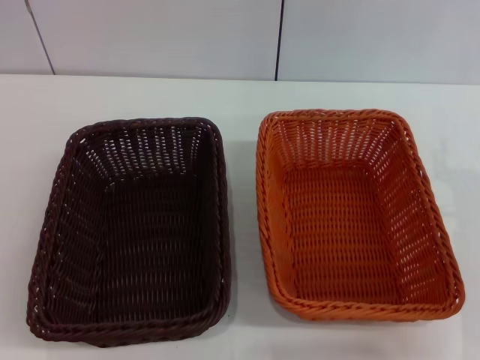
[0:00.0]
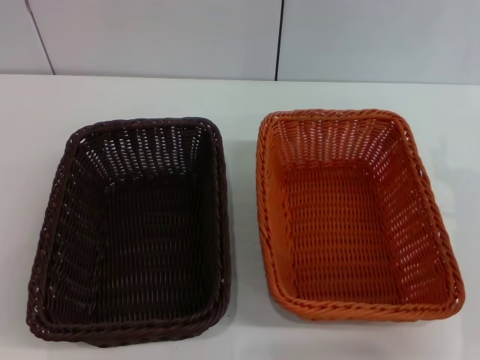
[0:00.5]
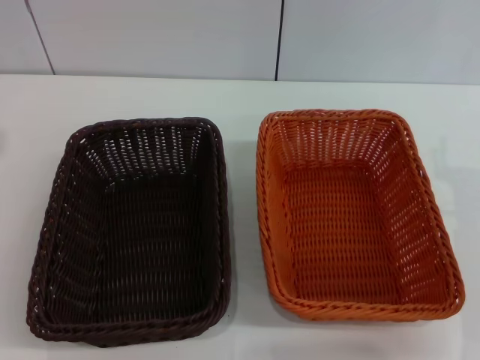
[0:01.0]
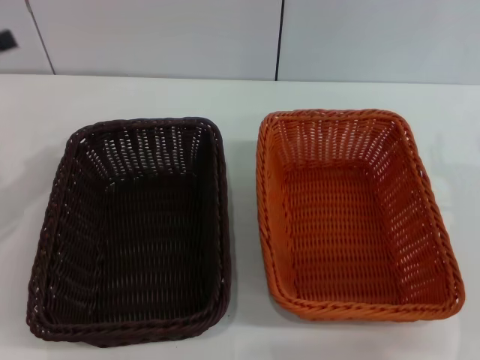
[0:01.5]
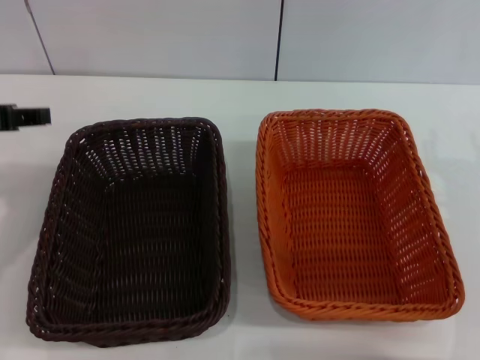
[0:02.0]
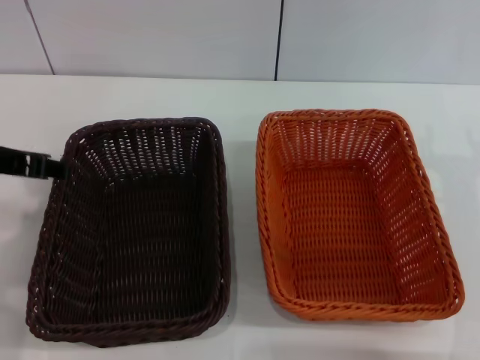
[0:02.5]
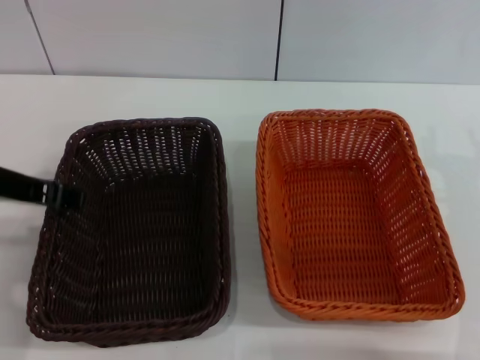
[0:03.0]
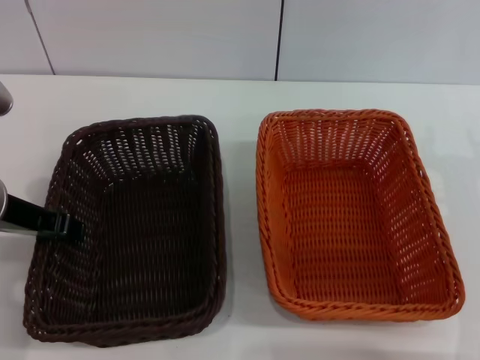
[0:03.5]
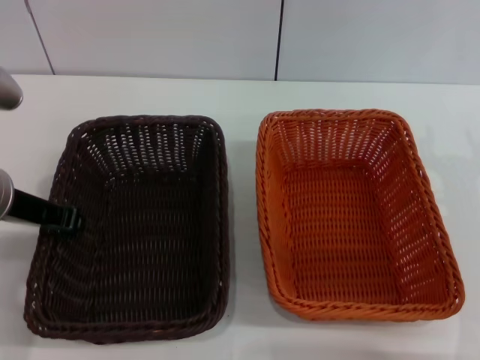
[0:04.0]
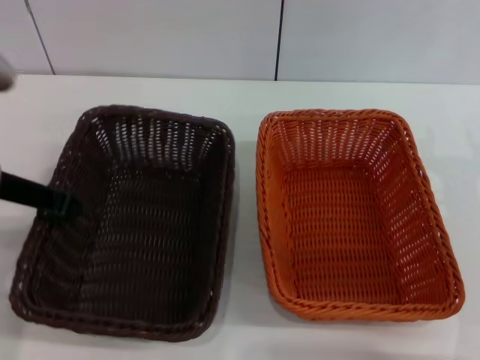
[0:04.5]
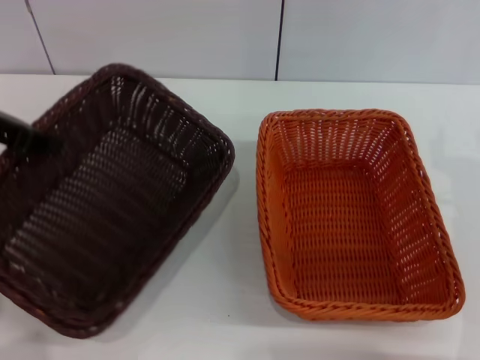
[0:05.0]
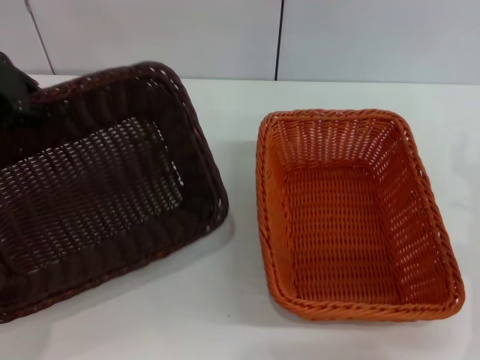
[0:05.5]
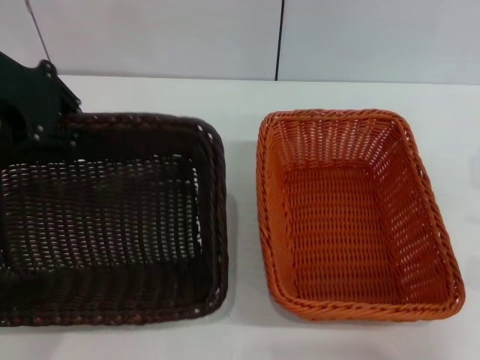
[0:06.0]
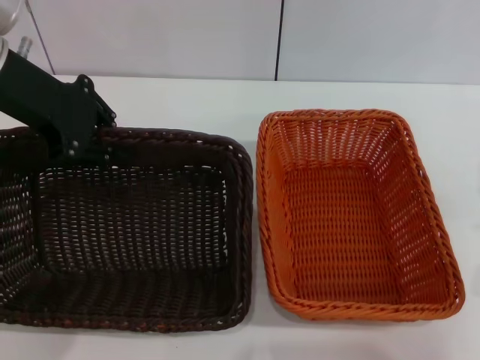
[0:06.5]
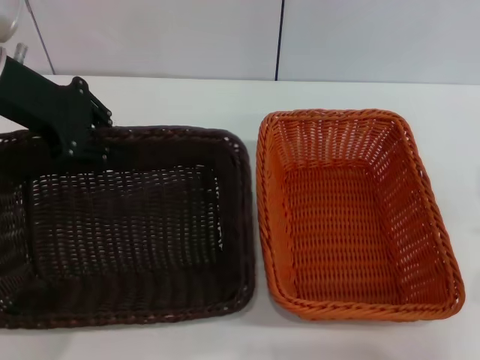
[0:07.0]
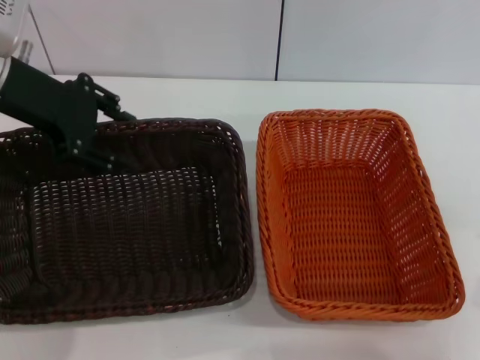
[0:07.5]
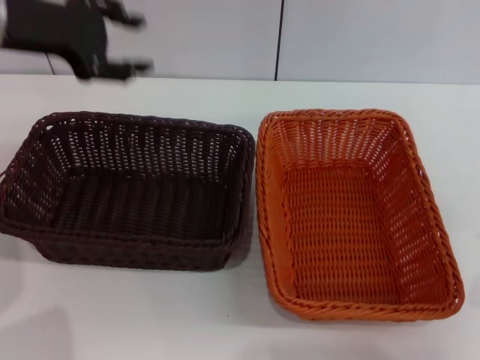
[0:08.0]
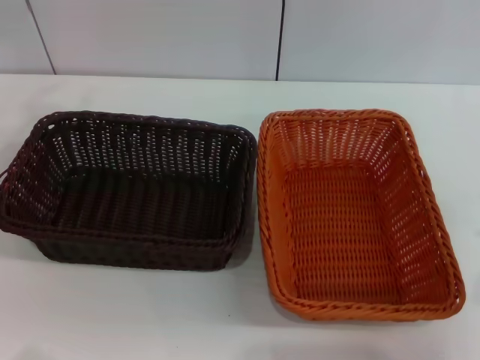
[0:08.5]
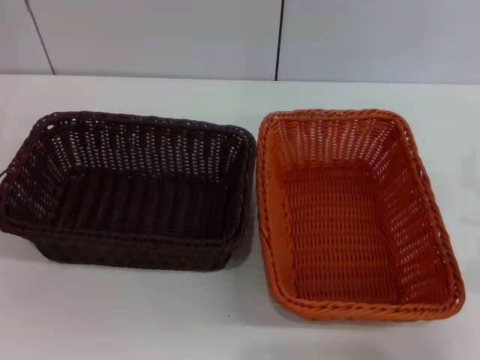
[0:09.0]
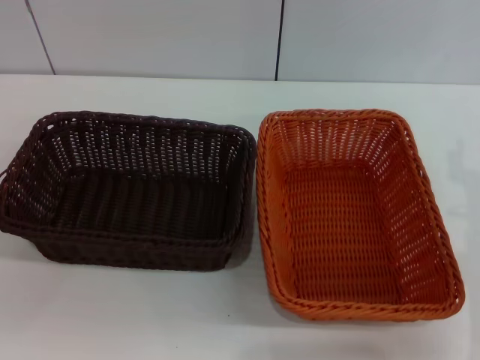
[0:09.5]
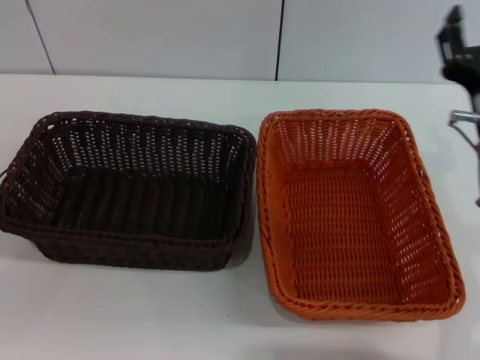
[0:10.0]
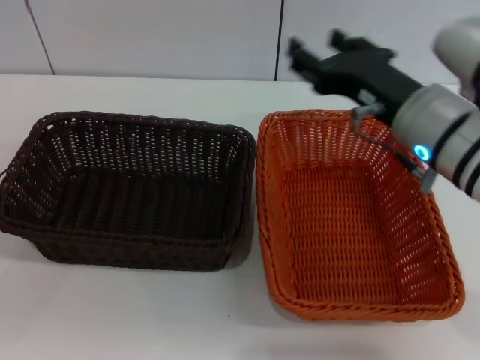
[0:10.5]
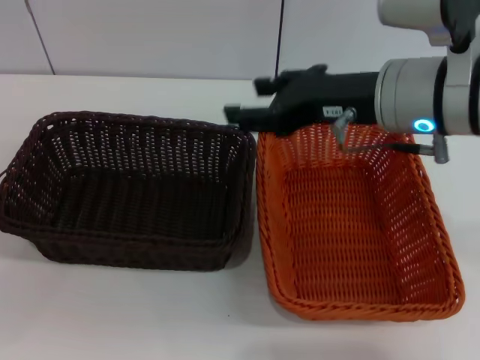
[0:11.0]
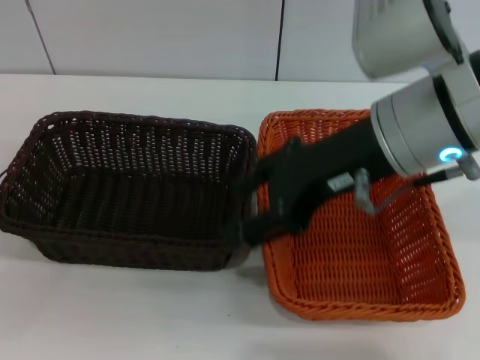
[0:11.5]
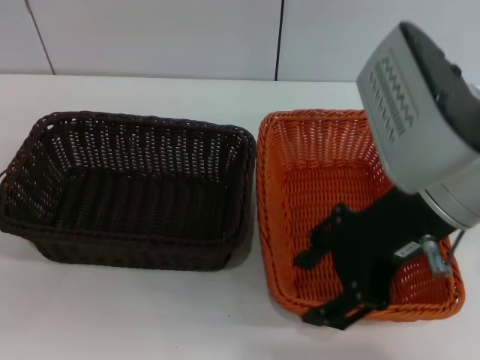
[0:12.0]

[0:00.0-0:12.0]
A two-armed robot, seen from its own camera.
Step, 0:00.0 to 0:05.0: Pick up the dark basket with the left gripper.
Step, 0:05.5 to 0:07.5: Place the dark basket in the center of view with the left gripper.
0:00.0 to 0:02.0: The left gripper heads to the right, upward and forward, covering about 20 cm.
0:02.0 to 0:04.0: The left gripper shifts roughly 10 cm to the right and downward, and closes its fingers.
0:04.0 to 0:06.0: The left gripper heads upward and forward, covering some 15 cm, and closes.
0:06.0 to 0:08.0: The left gripper opens.
0:08.0 to 0:10.0: The right gripper moves to the left and forward, about 10 cm. The left gripper moves to the left, downward and backward, about 30 cm.
0:10.0 to 0:12.0: The right gripper shifts roughly 15 cm upward and to the left.

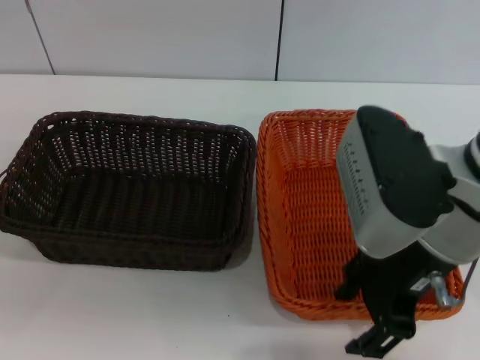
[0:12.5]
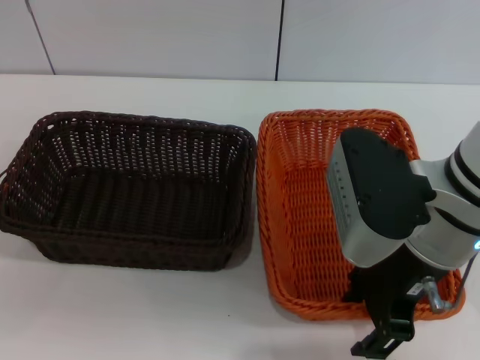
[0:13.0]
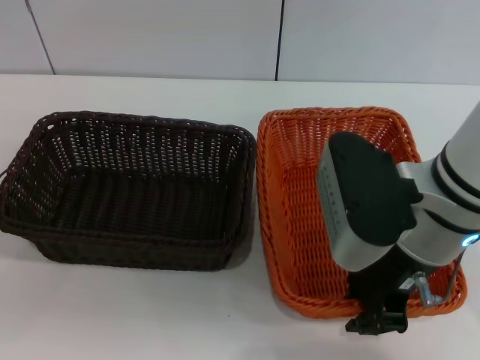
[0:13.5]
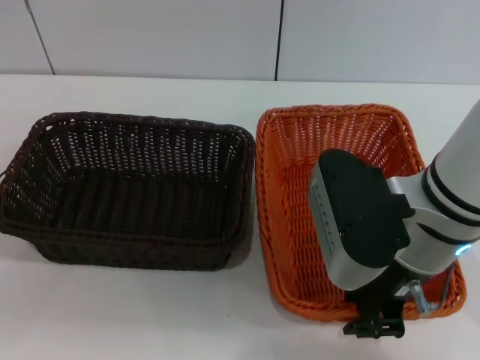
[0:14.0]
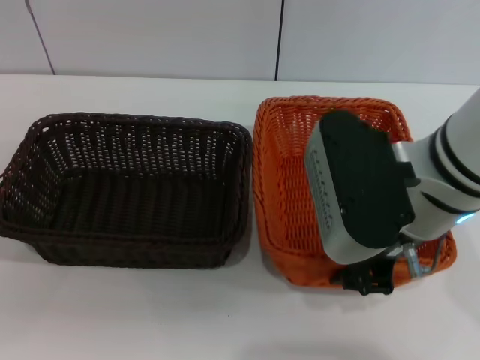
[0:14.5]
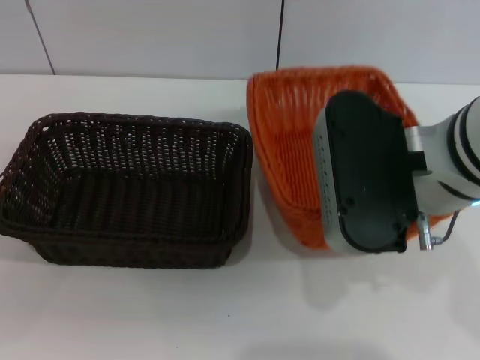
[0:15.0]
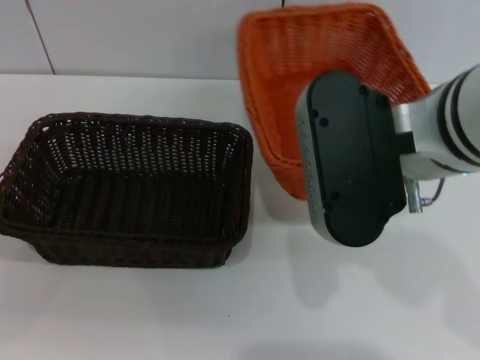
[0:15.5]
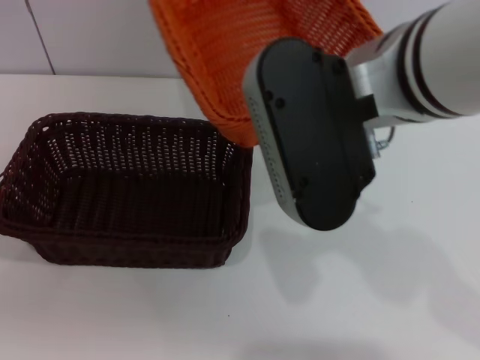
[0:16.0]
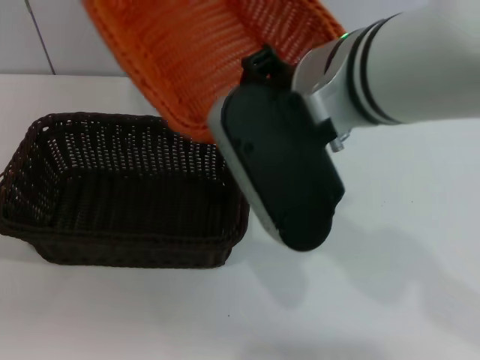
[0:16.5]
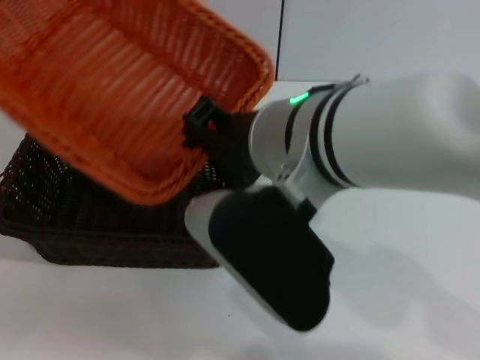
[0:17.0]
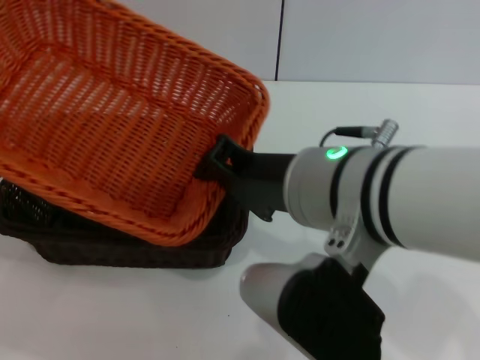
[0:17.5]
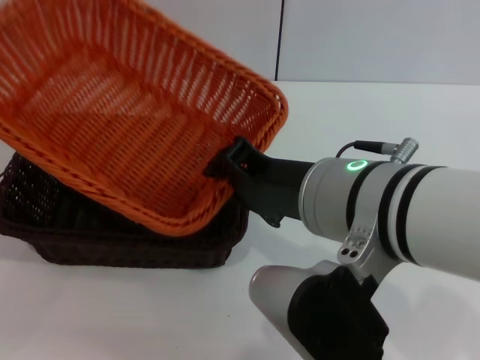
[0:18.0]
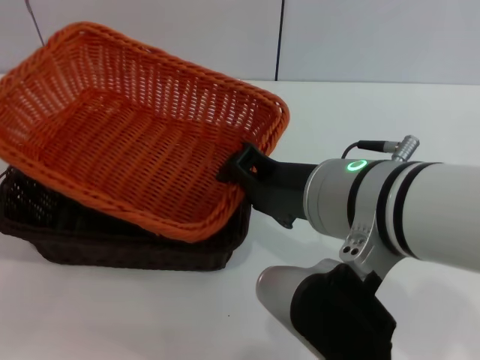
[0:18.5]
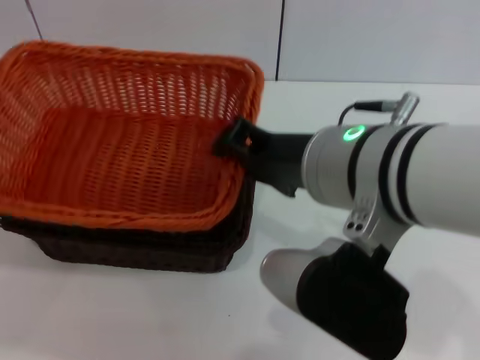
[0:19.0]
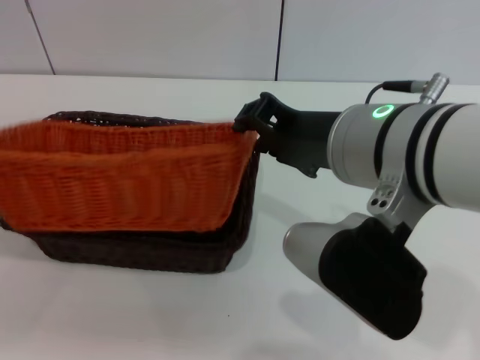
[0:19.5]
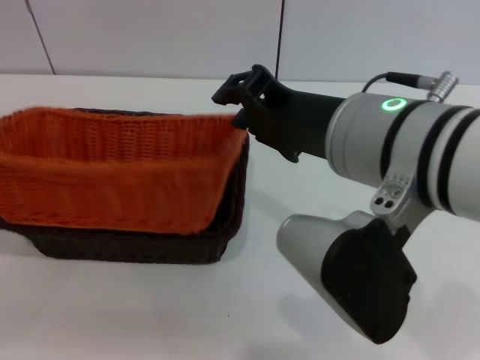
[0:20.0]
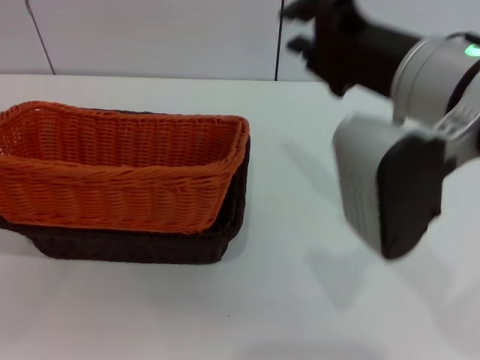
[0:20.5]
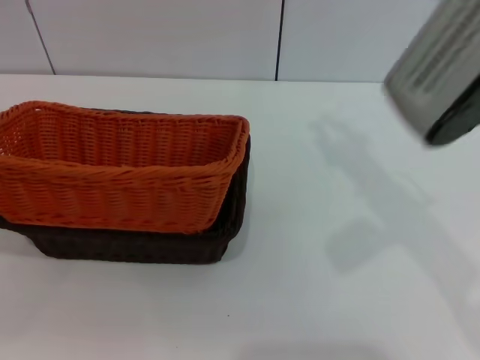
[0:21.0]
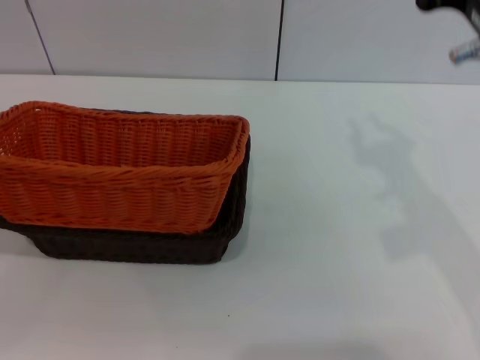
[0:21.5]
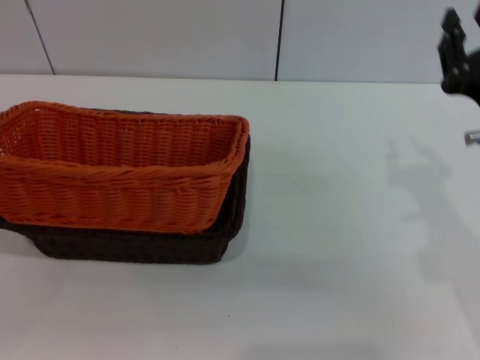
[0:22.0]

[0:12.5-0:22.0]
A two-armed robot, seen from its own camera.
Step, 0:12.5 to 0:15.0: Pick up the light basket with the right gripper.
Step, 0:15.5 to 0:20.0: Place the light basket on the dark basket with the right gripper.
0:12.5 to 0:14.5: The right gripper closes its fingers.
0:14.5 to 0:16.5: The right gripper is displaced to the left and upward by about 10 cm.
0:16.5 to 0:18.0: The right gripper heads downward and backward, covering some 10 cm.
0:20.0 to 0:22.0: The right gripper heads to the right and downward, covering approximately 15 cm.
